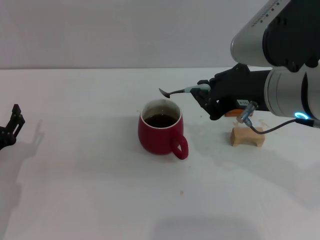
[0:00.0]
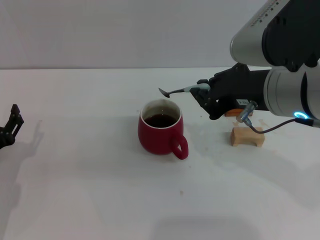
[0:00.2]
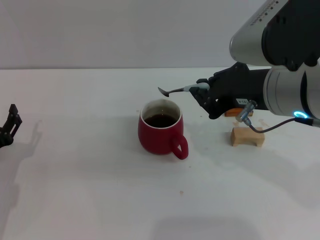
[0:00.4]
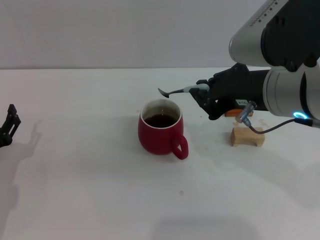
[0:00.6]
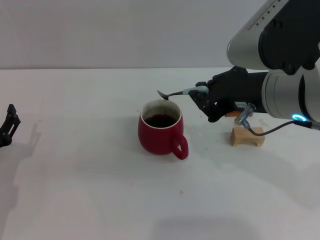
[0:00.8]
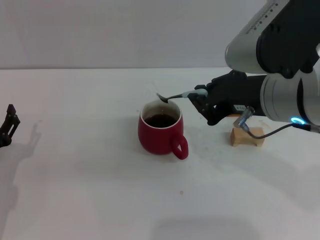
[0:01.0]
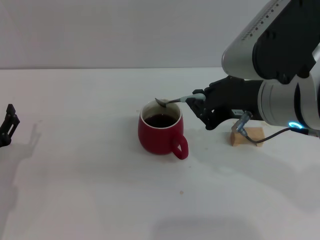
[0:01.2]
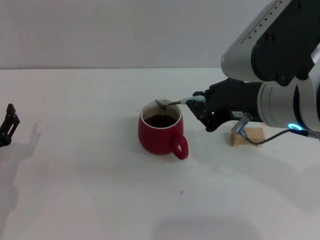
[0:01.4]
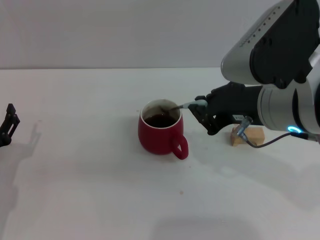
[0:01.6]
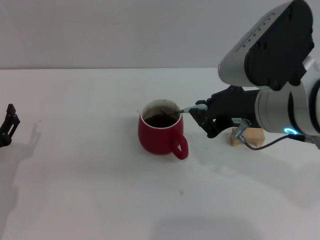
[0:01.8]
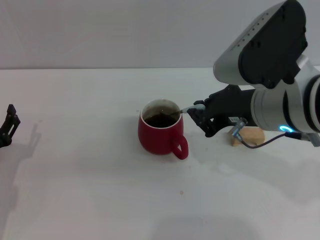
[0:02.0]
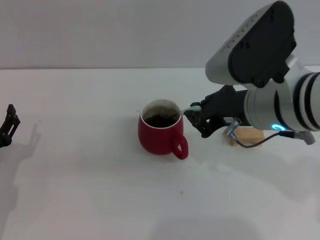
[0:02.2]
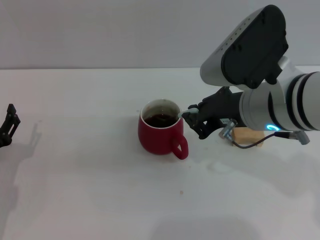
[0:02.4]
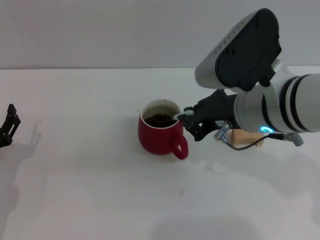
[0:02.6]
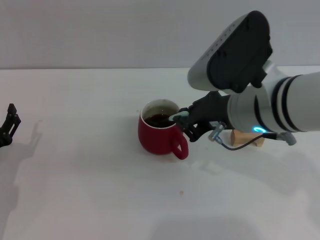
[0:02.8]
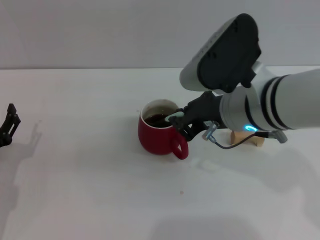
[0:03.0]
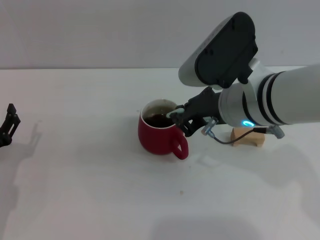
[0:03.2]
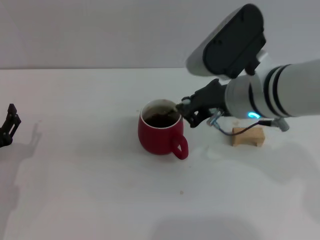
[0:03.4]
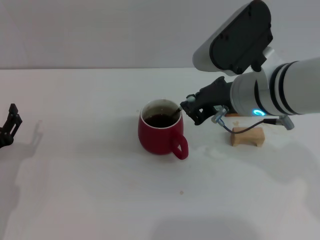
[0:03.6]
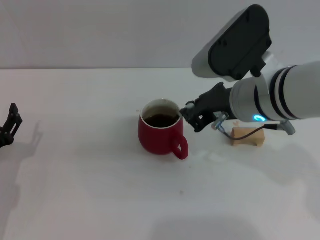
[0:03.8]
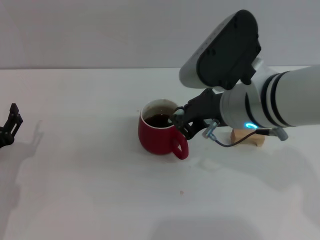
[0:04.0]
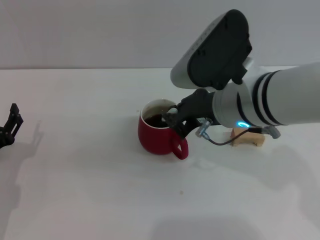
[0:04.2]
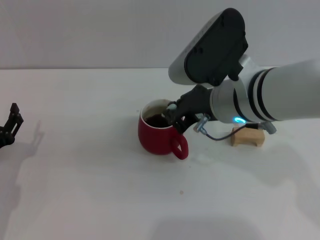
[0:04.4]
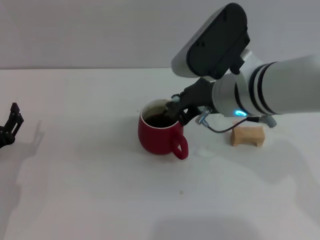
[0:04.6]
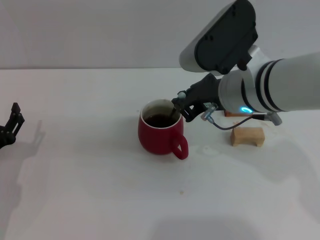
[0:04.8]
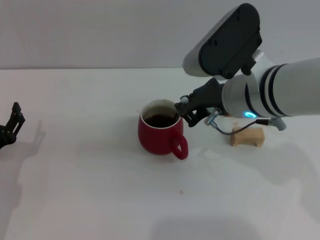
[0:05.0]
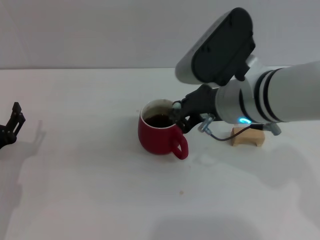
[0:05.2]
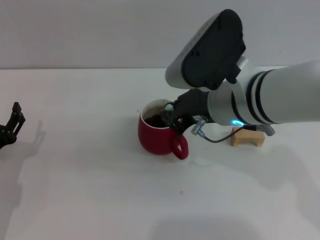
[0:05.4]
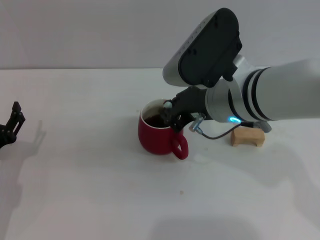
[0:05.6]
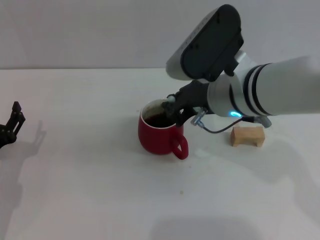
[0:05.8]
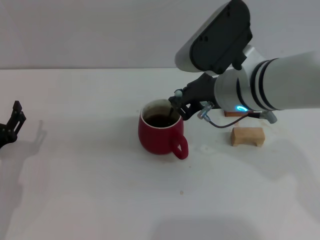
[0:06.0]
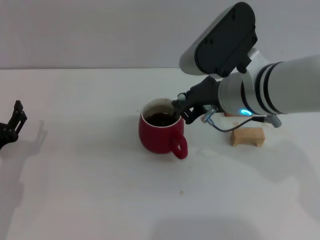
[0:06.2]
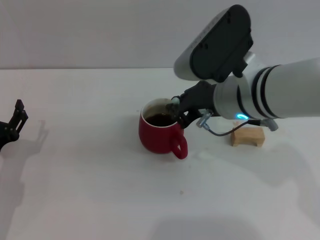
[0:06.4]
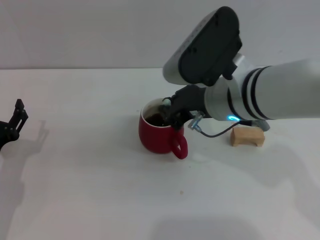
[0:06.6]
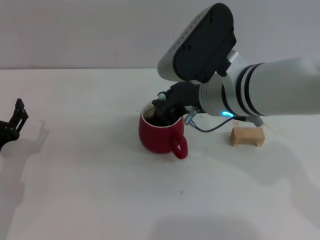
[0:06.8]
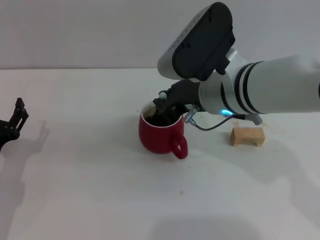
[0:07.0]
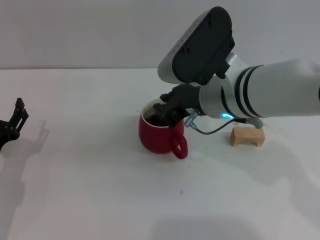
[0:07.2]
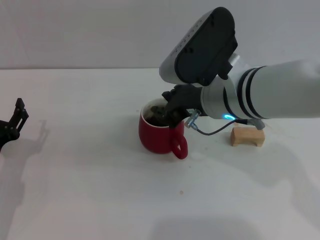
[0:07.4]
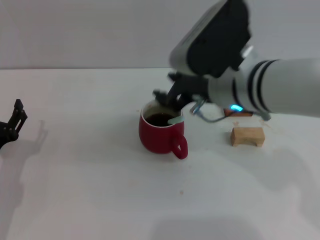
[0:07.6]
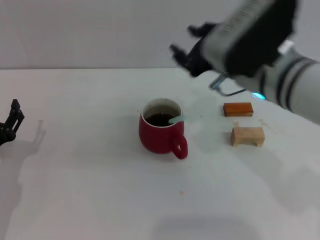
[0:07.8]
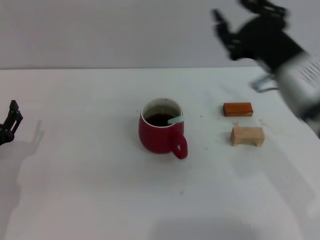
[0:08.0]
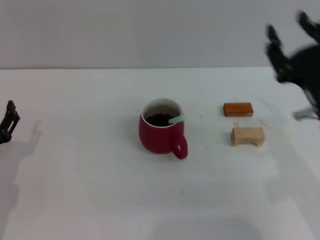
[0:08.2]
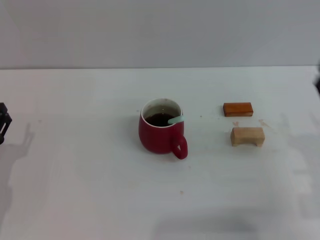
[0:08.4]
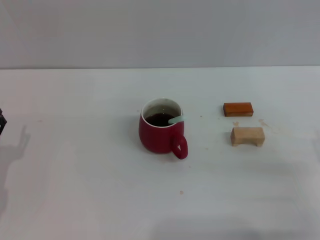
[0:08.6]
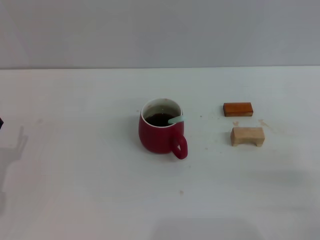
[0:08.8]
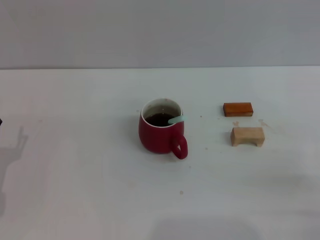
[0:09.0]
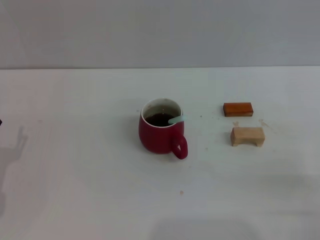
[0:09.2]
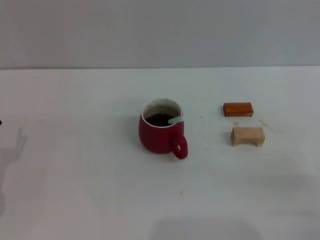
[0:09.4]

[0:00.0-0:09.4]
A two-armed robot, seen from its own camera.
Task of the whole recording: Move the red cup to the center, lift the blue spoon, stir it three times in the cup, and put the spoon into the cup.
Step, 0.0 to 7.6 s: Stir the coffee in the cup with the right gripper.
0.0 to 1.6 s: Both grippers stay put.
1.6 to 3.2 s: The right gripper moves about 5 cm.
3.2 to 6.2 s: There are only small adjustments of the grippers.
6.2 to 7.8 s: The right gripper opens up.
7.8 to 9.4 s: The right gripper moves to the right, downward and backward, approximately 30 cm, and opens.

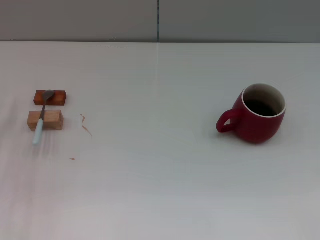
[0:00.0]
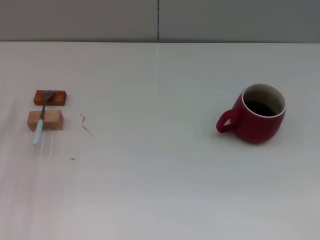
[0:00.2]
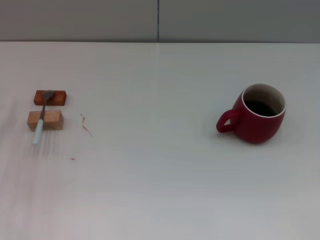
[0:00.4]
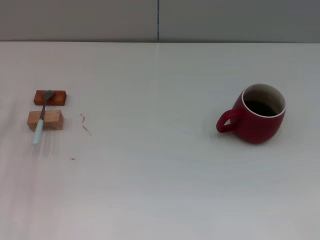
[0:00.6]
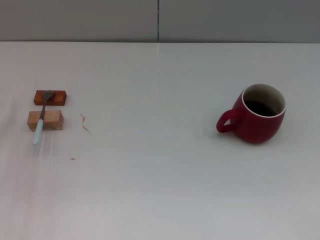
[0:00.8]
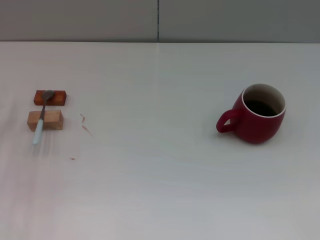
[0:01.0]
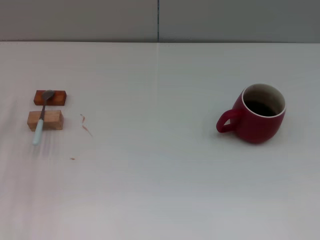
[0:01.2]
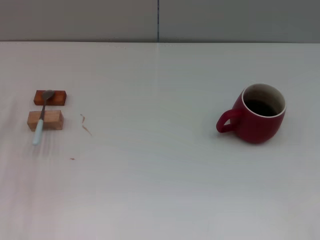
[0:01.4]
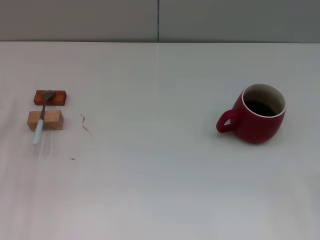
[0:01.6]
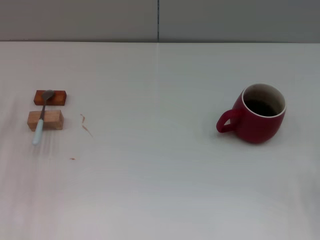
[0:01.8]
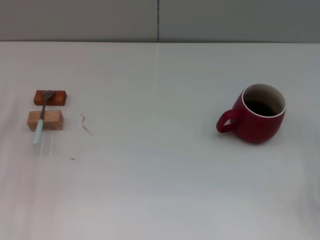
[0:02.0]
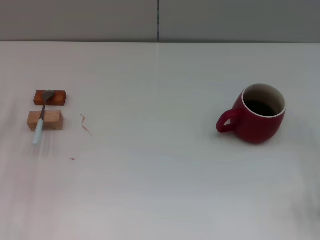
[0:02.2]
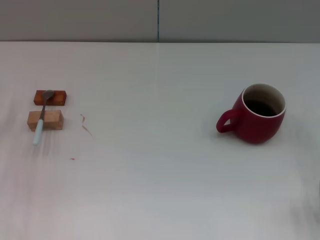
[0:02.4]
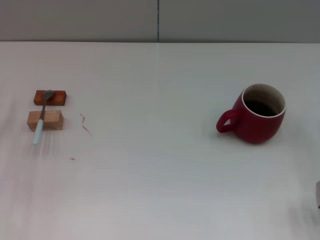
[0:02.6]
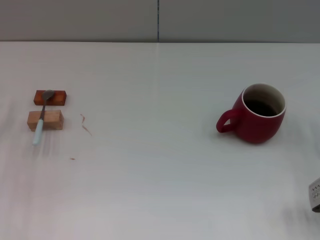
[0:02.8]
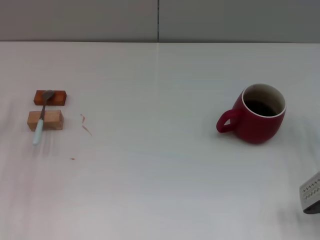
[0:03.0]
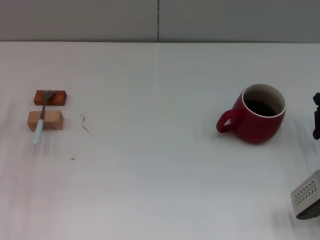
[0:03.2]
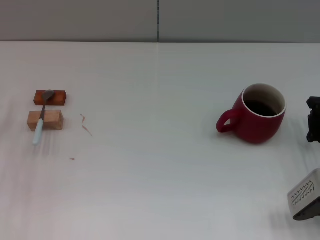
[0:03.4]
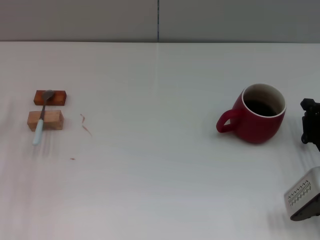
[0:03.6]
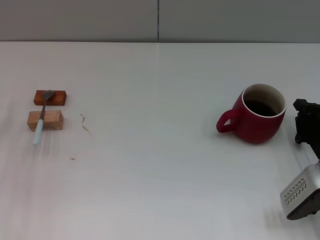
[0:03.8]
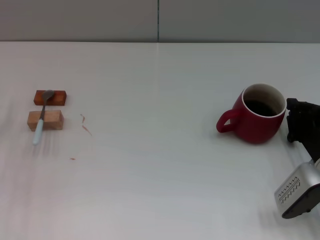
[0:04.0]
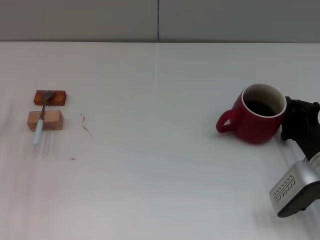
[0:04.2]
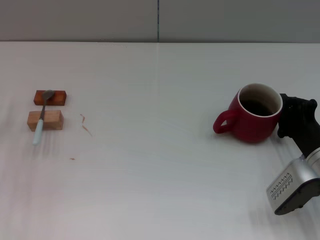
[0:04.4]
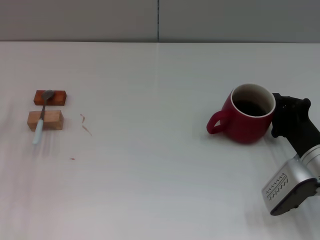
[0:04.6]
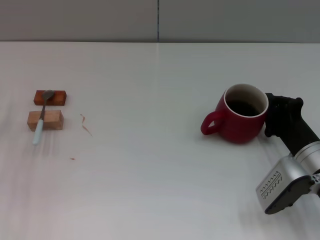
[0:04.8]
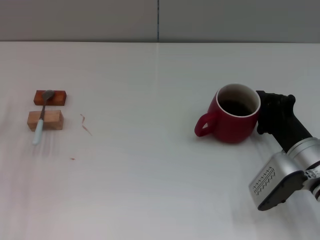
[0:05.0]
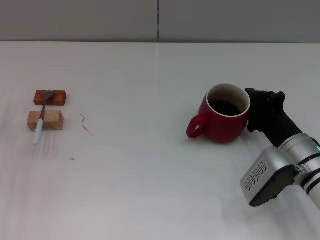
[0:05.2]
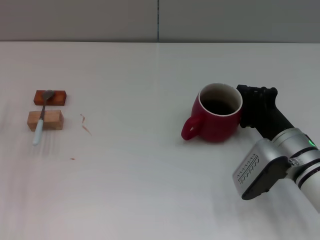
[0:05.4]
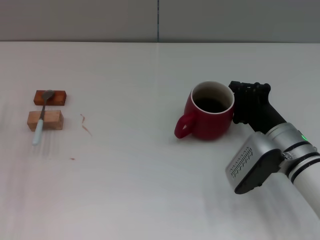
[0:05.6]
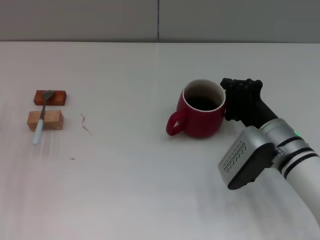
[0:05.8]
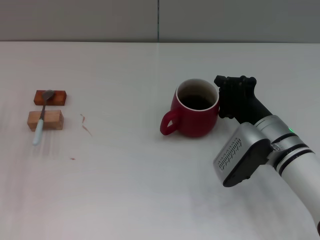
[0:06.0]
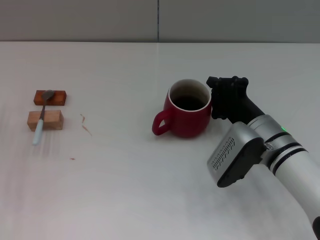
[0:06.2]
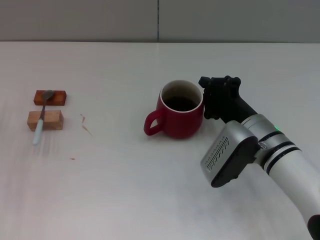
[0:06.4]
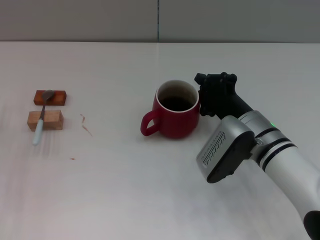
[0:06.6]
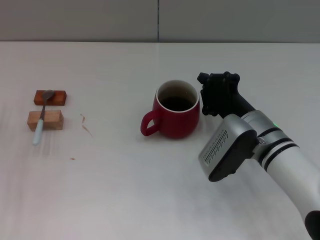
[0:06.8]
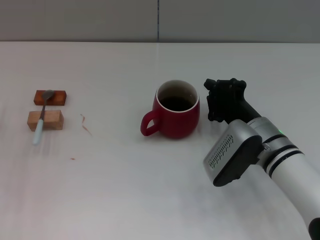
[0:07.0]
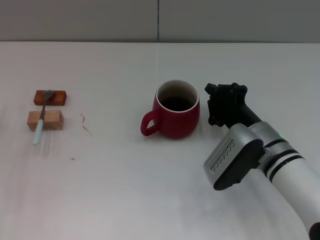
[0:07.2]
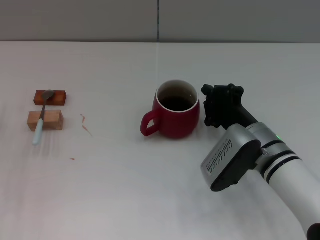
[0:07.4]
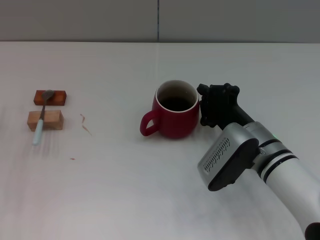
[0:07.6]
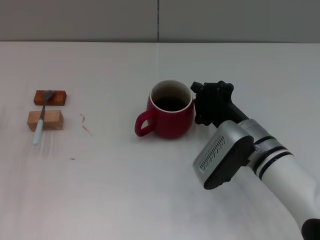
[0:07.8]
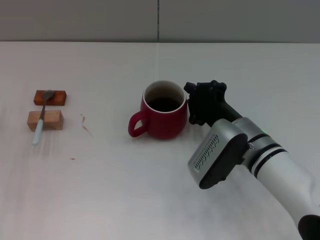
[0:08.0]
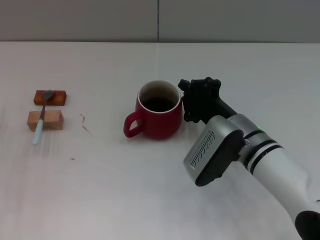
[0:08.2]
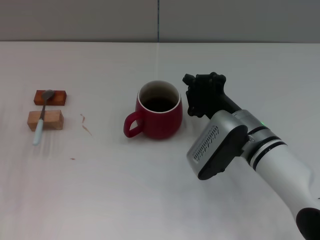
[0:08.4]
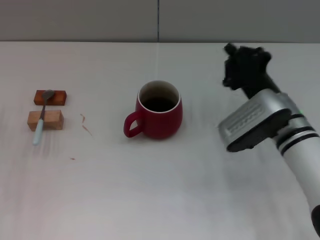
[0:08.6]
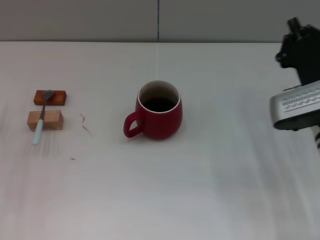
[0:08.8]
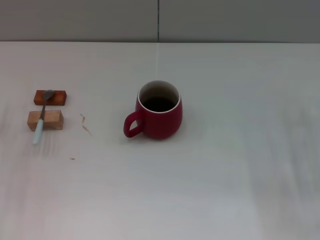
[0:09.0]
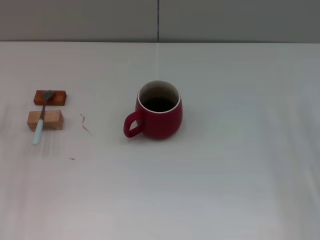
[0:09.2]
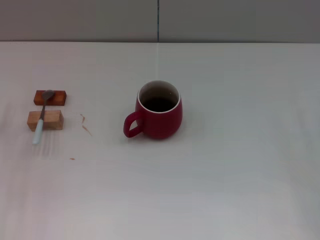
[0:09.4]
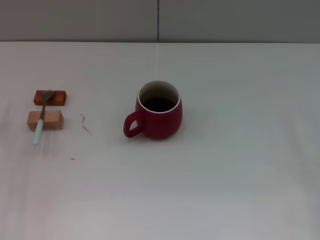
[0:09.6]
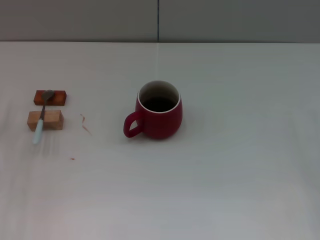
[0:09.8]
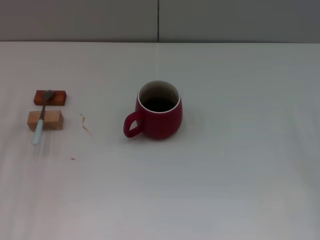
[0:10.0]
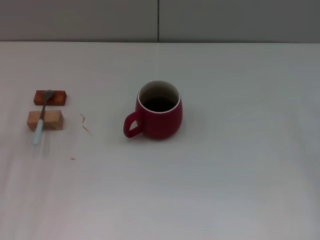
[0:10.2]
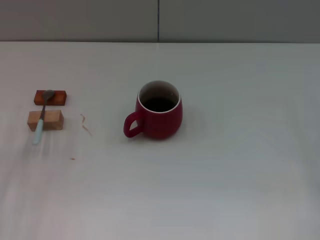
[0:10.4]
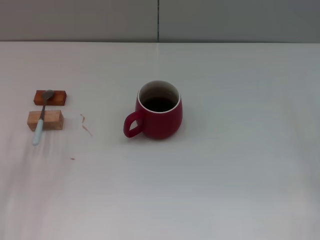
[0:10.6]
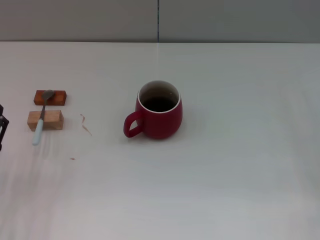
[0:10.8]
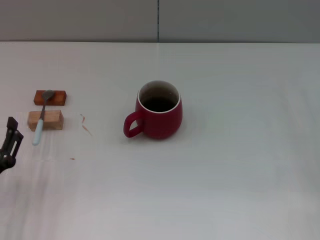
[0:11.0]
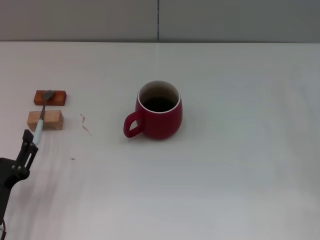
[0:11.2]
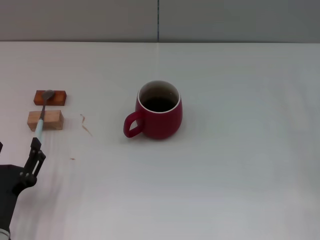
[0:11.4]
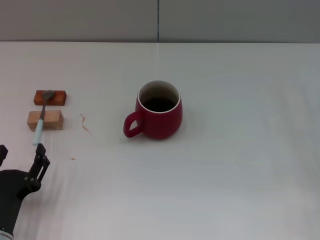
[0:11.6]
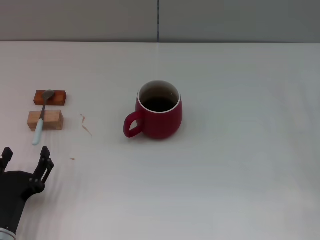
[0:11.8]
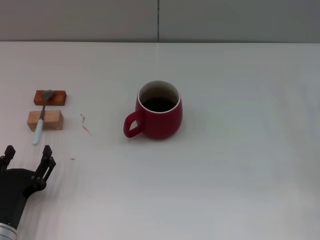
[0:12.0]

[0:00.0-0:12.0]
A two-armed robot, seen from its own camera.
Task of the whole recording: Move the red cup to the center, lift the blue spoon, stir it three times in the cup, and put the spoon into the cup.
Step, 0.0 to 8.2 s: Move the cup with coffee to the center of view with the right gripper.
1.6 to 3.0 s: The right gripper travels to the left by about 5 cm.
3.0 to 4.4 s: The right gripper moves some 5 cm.
4.4 to 6.0 s: The right gripper heads to the left, covering roughly 10 cm.
6.0 to 7.6 s: The grippers stay close to where they were, moving slightly.
7.6 to 9.0 s: The right gripper shifts approximately 15 cm to the right.
10.4 to 12.0 s: The left gripper is displaced backward and to the right by approximately 10 cm.

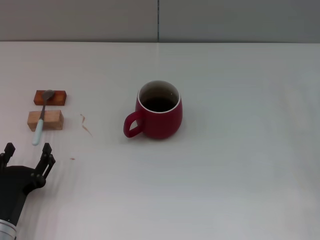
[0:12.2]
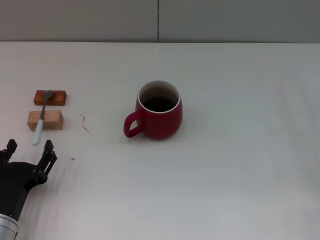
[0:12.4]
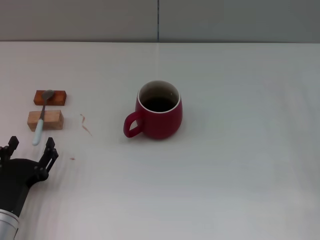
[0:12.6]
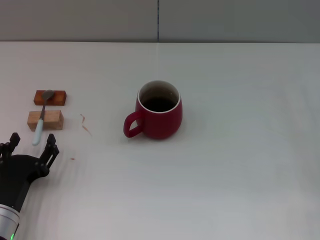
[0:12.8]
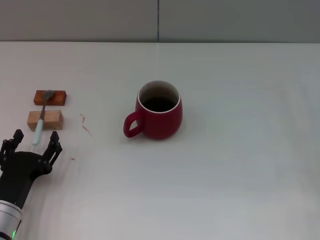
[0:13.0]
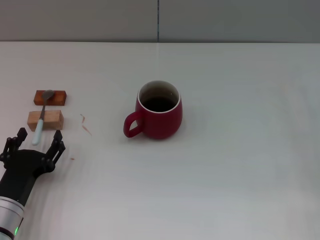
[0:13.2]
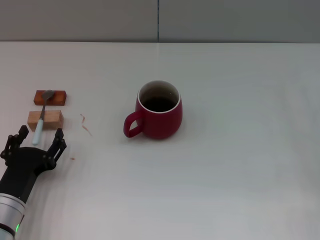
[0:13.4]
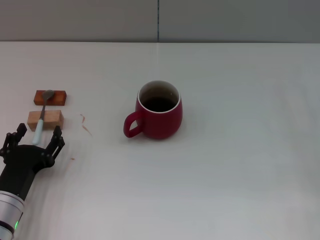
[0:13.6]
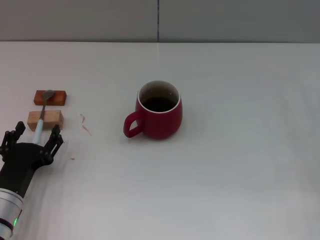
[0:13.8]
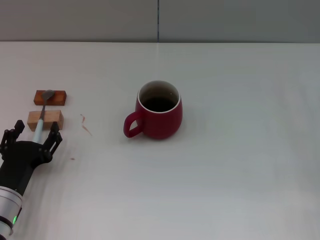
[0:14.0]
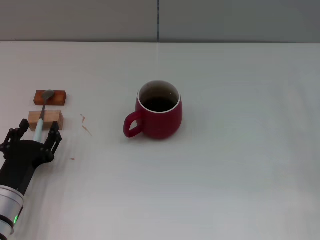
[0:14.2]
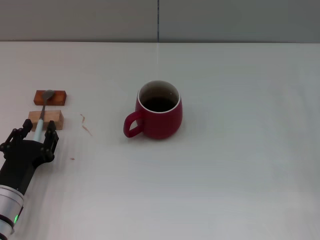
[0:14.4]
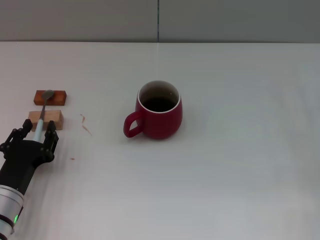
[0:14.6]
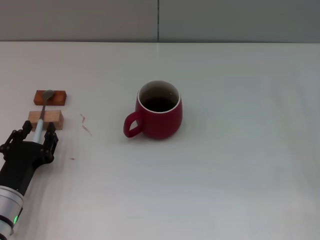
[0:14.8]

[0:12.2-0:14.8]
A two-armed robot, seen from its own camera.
Task of the whole recording: Move the red cup to the center, lift the blue spoon, stir it three times in the cup, and put the spoon into the cup.
12.2 to 13.4 s: The grippers stay close to where they were, moving slightly.
13.4 to 14.8 s: The left gripper closes.
